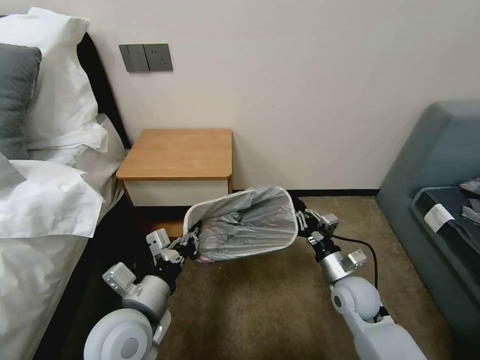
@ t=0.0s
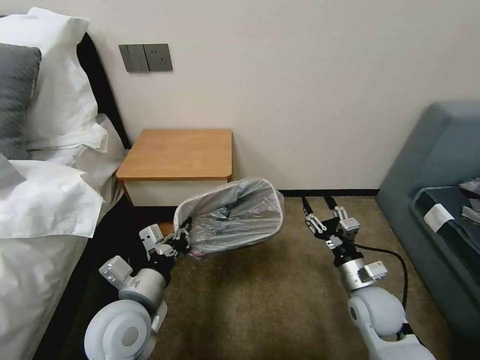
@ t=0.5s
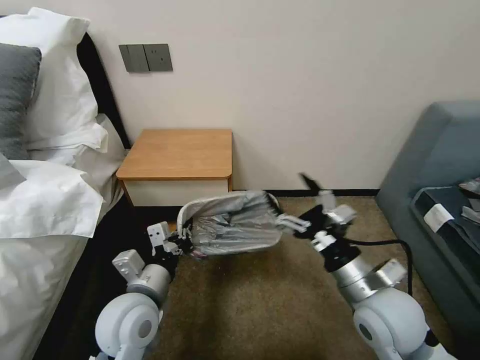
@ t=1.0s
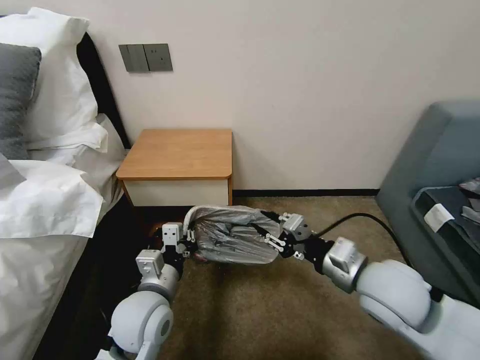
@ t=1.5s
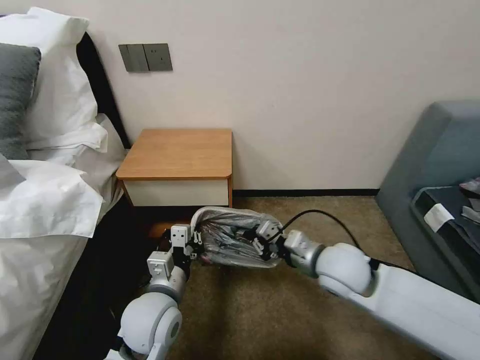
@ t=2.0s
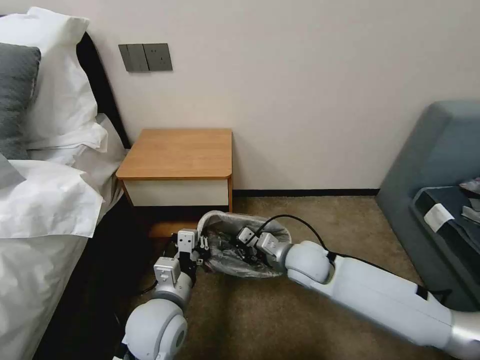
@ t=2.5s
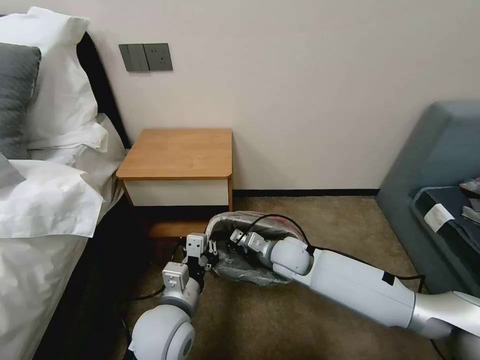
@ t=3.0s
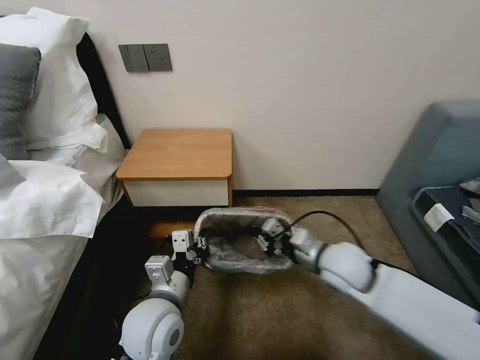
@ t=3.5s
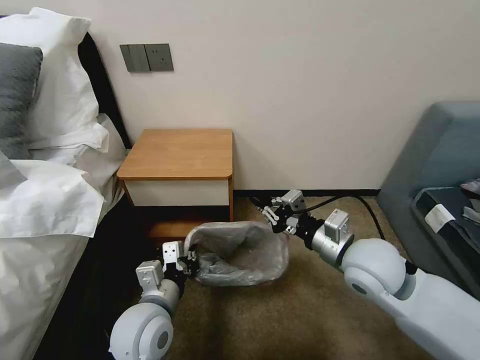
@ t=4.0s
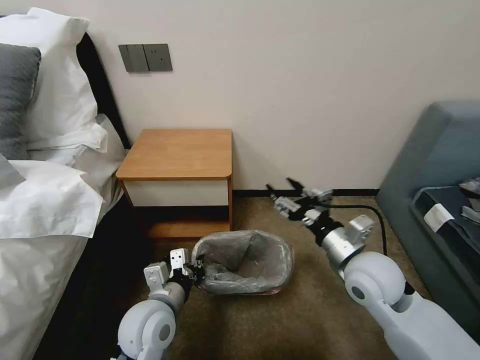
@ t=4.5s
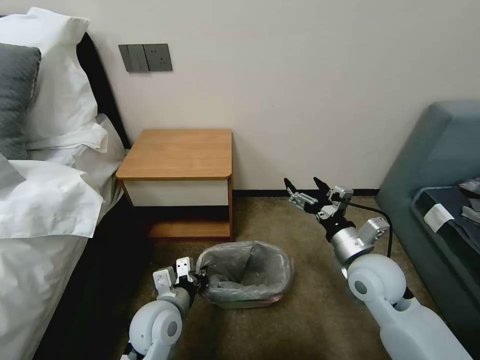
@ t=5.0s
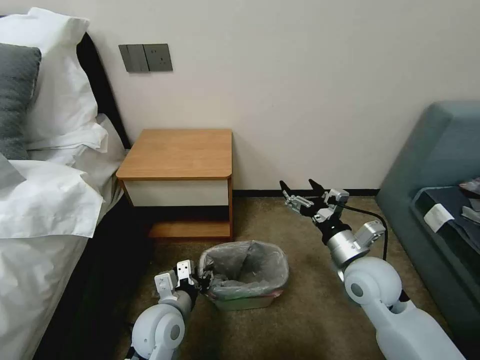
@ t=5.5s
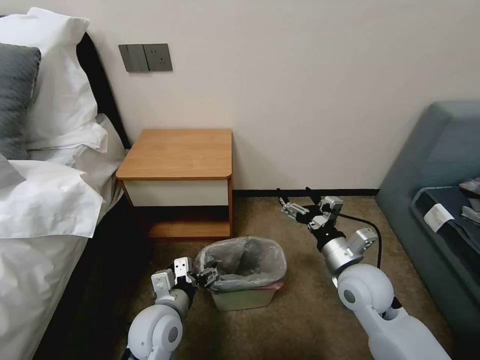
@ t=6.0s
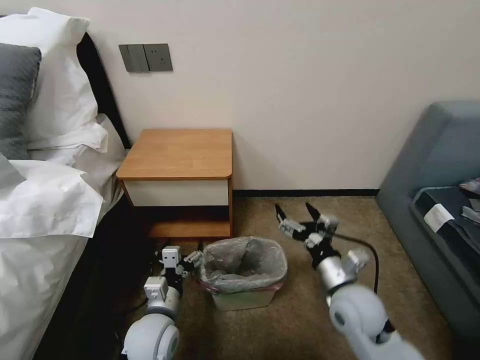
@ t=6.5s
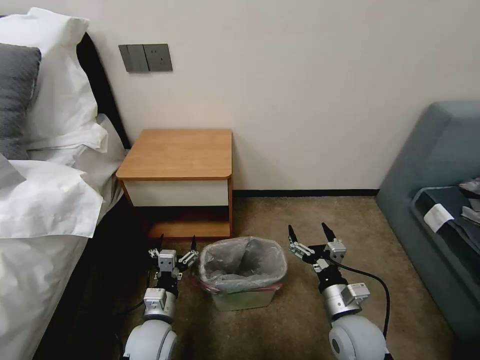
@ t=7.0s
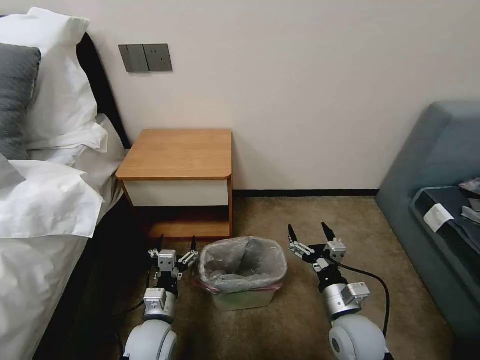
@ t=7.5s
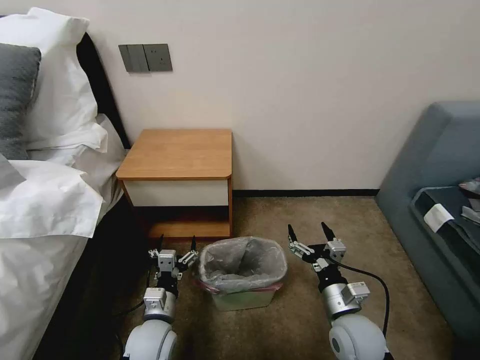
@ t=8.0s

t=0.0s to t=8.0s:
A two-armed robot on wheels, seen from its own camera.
Task of the whole recording: Pick up the garbage bag from the table and place it over the trash can.
t=0.0s to t=2.0s: The right gripper shifts about 15 cm upward and to the left, and opens, then closes once more, while the left gripper ends up about 5 cm from where it was.
t=2.0s to t=4.0s: The right gripper goes downward and returns, roughly 10 cm each way.
t=4.0s to t=6.0s: Both grippers travel together downward, some 5 cm. The left gripper opens up; the right gripper opens up.
t=6.0s to t=8.0s: The right gripper shifts about 10 cm downward and backward. Meanwhile the left gripper travels downward by some 5 cm.
